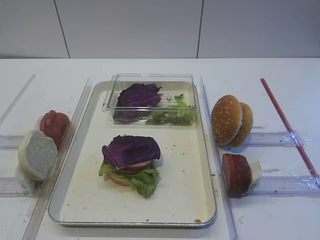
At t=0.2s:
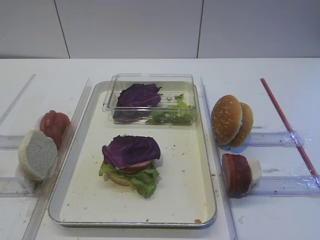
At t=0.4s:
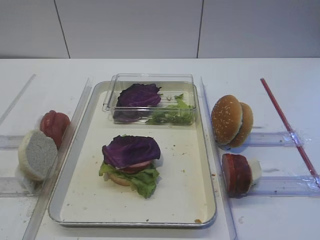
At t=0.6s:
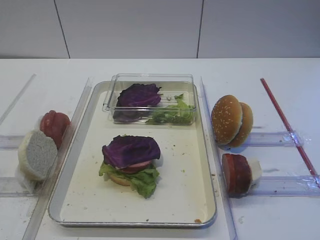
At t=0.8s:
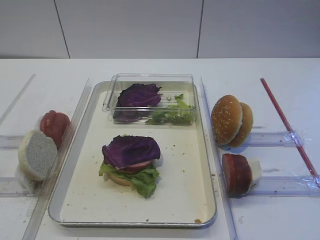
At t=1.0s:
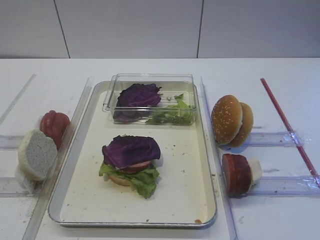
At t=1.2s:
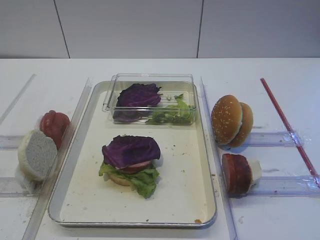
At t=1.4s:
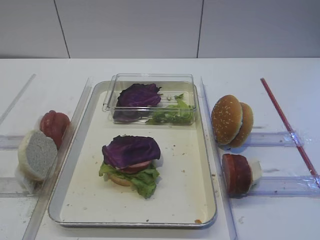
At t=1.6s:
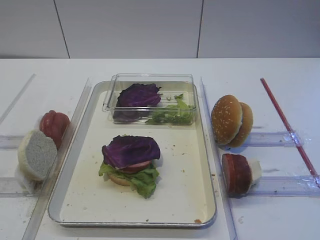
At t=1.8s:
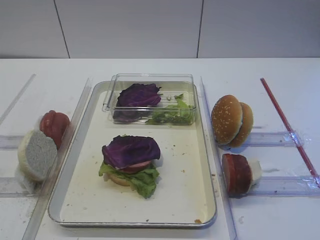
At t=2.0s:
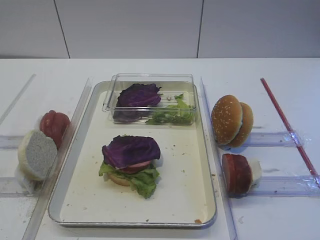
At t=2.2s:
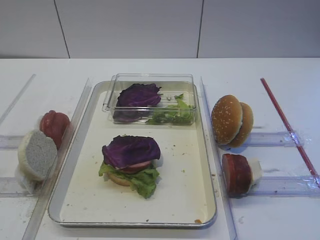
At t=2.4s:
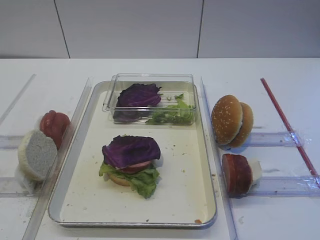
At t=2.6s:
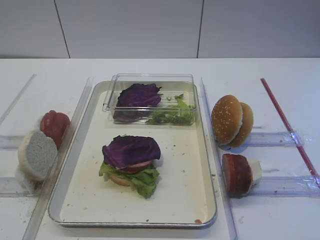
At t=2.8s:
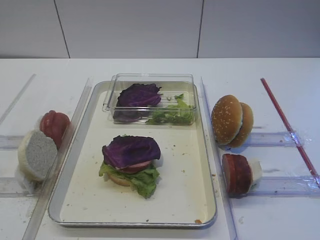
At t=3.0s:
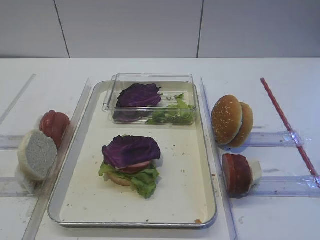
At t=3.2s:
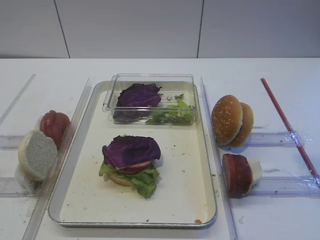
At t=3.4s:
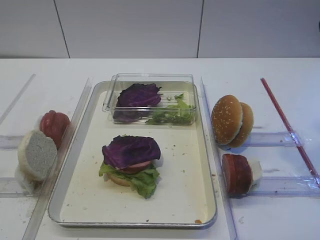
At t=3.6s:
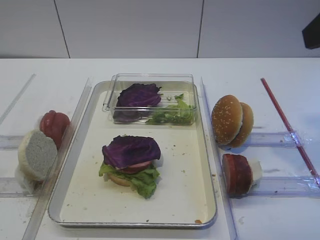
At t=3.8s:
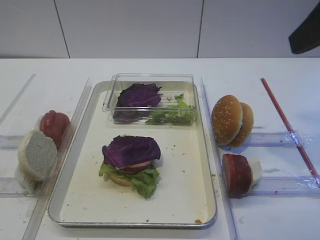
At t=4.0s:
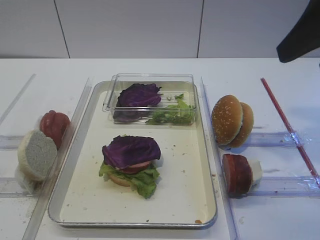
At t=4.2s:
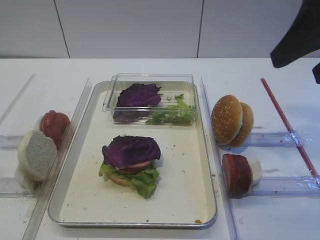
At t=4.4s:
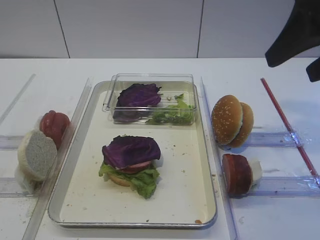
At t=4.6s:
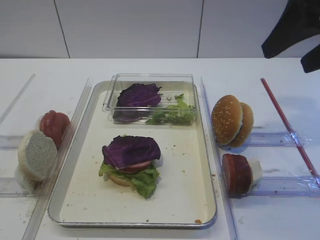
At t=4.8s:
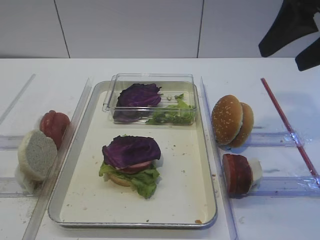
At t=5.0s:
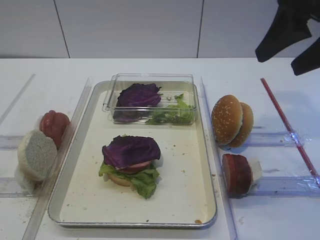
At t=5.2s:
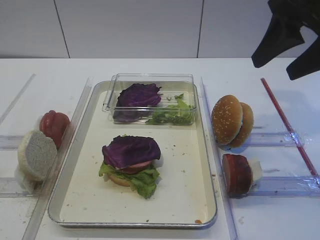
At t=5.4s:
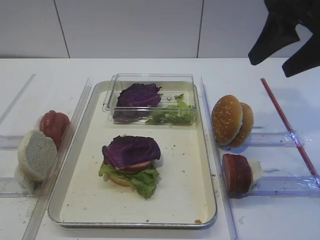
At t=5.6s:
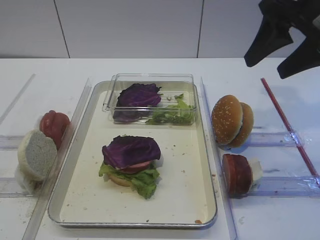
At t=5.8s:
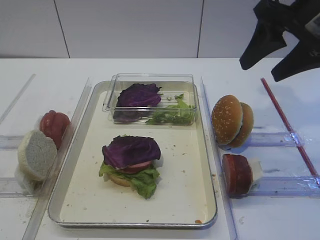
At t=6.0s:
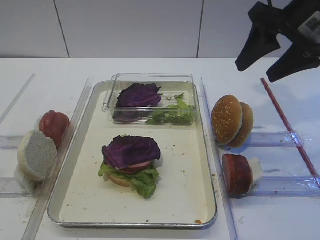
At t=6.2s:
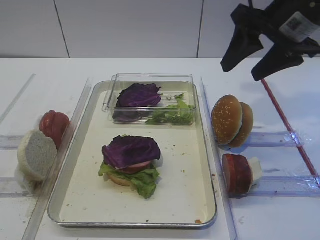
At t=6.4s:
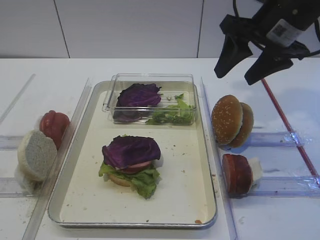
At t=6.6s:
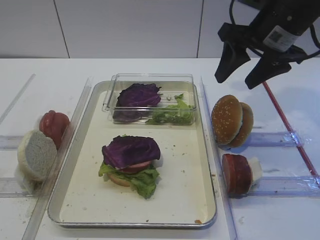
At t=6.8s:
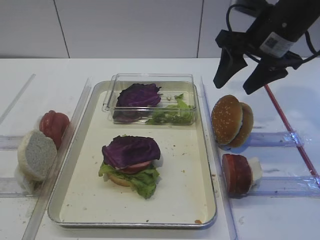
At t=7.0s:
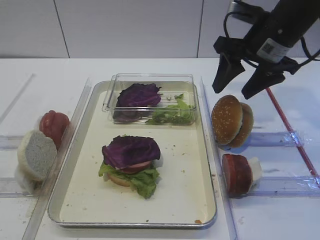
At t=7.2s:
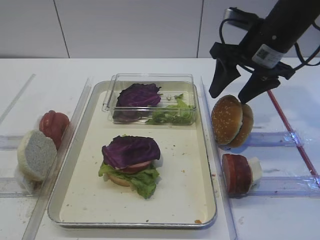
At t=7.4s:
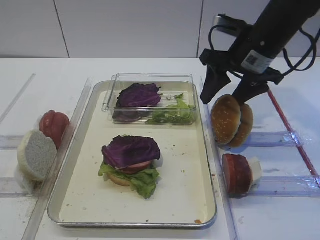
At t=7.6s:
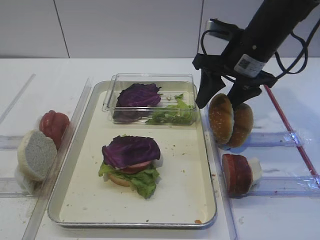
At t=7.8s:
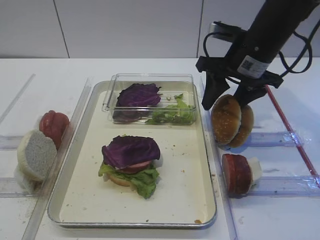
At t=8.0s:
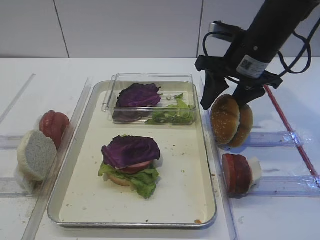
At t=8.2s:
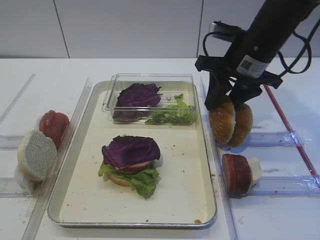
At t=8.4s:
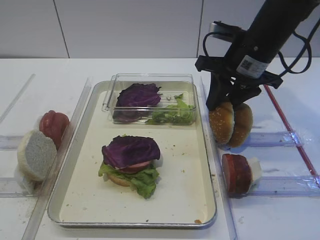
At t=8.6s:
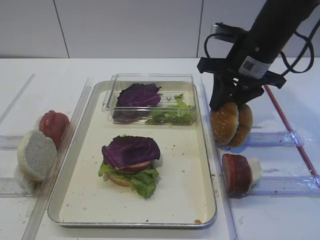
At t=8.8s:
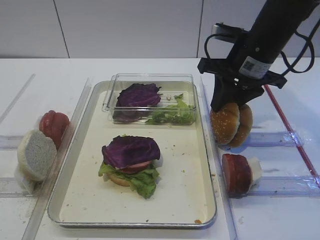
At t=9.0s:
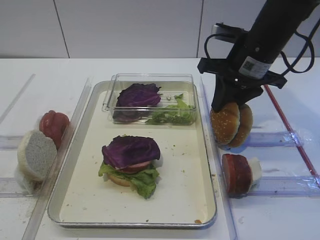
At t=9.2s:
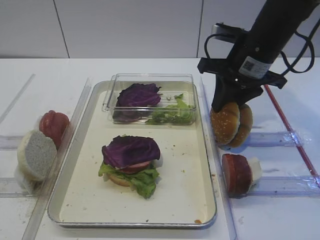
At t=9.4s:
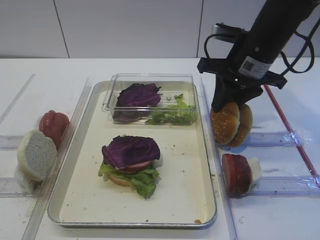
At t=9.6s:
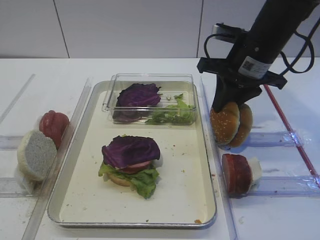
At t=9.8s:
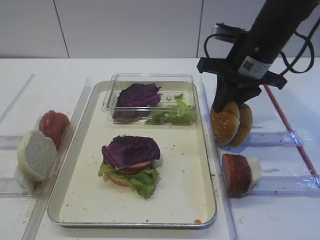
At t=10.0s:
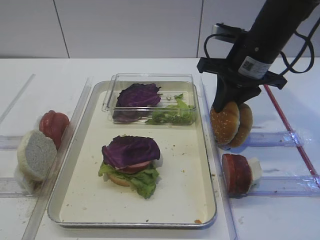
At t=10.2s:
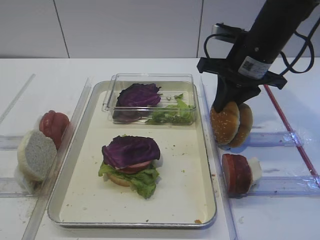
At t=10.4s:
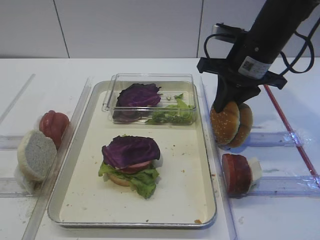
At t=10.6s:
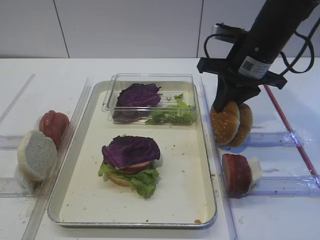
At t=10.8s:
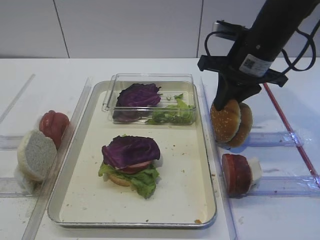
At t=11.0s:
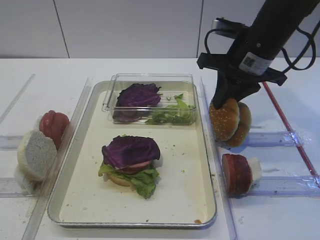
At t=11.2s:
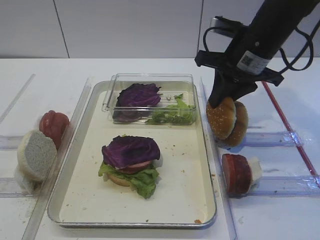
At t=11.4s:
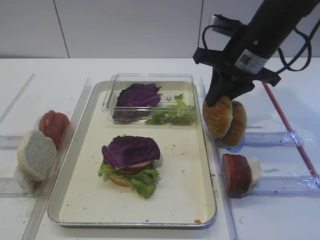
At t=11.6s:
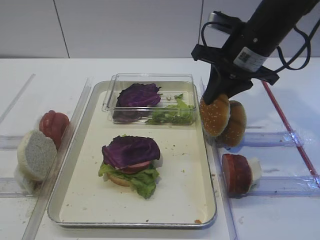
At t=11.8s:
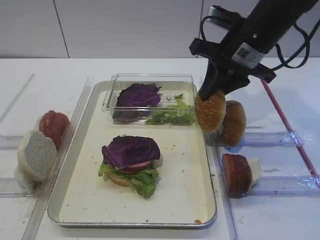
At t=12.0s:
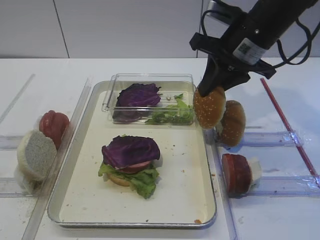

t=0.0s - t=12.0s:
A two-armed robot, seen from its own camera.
Step, t=0.0s - t=11.8s: Pick up the hamburger lid with the right gripper.
t=3.0s - t=4.4s: The right gripper travels forward and downward by some 15 cm.
t=4.4s - t=6.0s: The right gripper goes about 10 cm forward.
t=6.0s - t=7.6s: The right gripper shifts roughly 10 cm downward and to the left.
t=7.6s - t=9.0s: The right gripper closes up.
t=9.0s - t=10.4s: The two grippers keep their place.
t=10.4s - t=12.0s: The grippers stay close to where they were, moving slightly.

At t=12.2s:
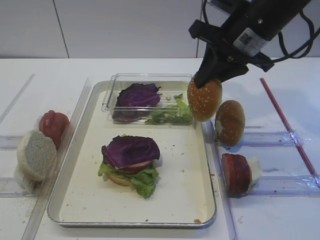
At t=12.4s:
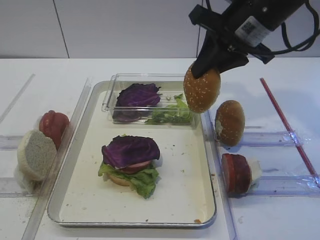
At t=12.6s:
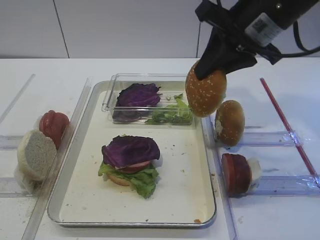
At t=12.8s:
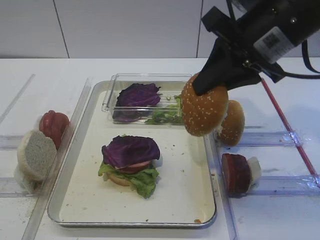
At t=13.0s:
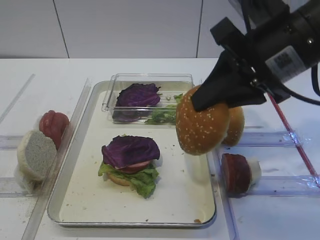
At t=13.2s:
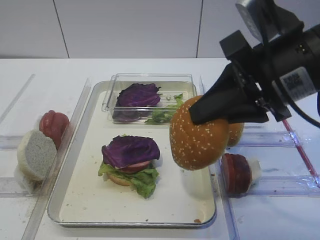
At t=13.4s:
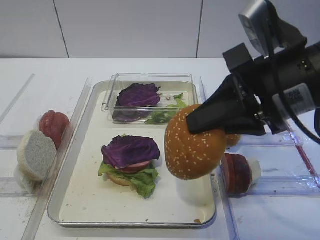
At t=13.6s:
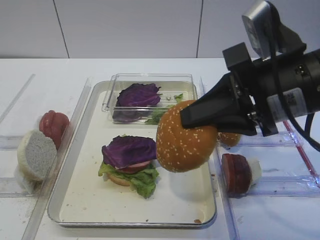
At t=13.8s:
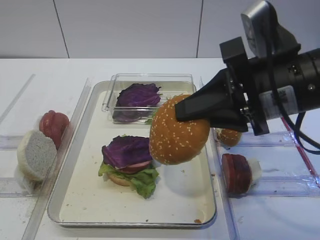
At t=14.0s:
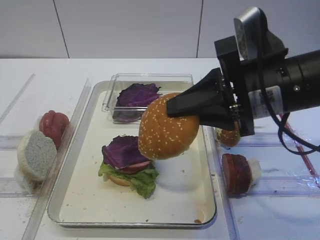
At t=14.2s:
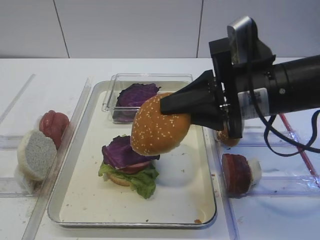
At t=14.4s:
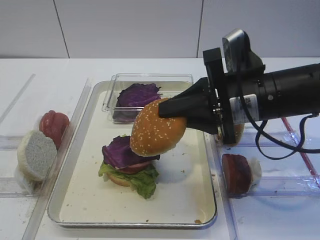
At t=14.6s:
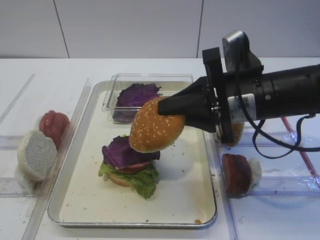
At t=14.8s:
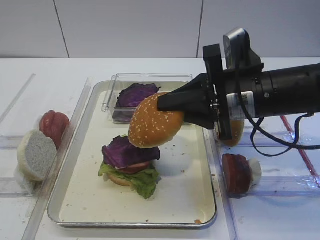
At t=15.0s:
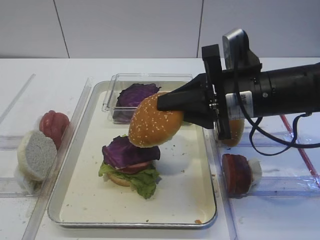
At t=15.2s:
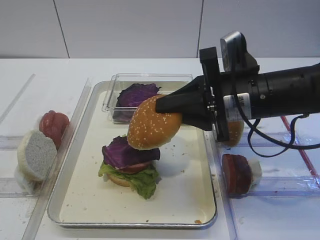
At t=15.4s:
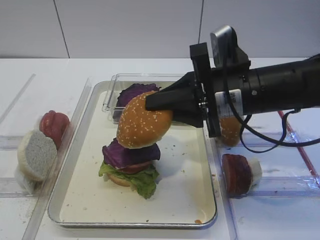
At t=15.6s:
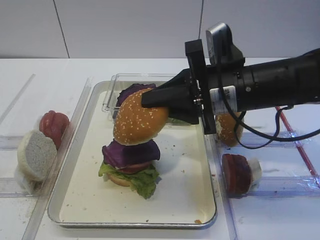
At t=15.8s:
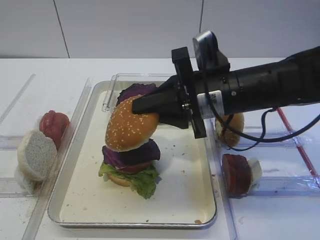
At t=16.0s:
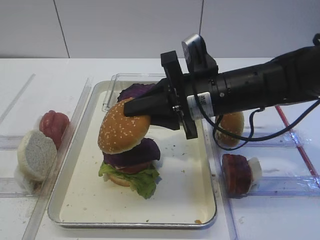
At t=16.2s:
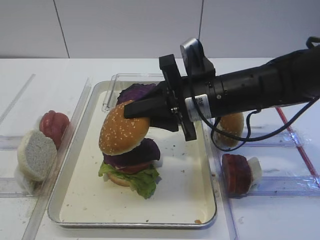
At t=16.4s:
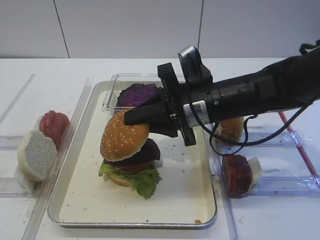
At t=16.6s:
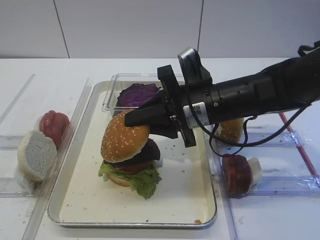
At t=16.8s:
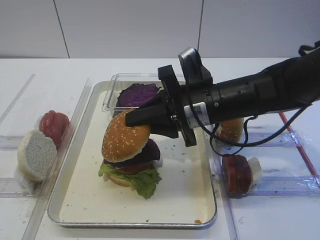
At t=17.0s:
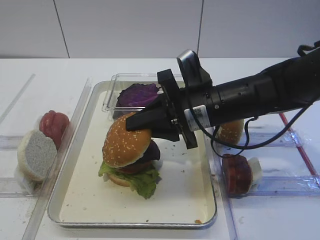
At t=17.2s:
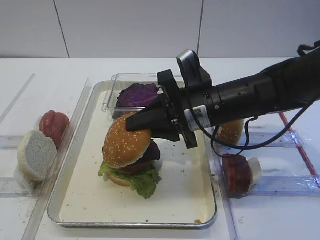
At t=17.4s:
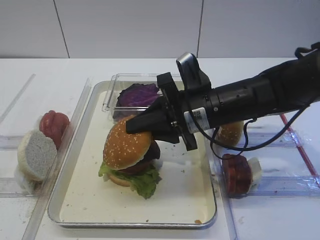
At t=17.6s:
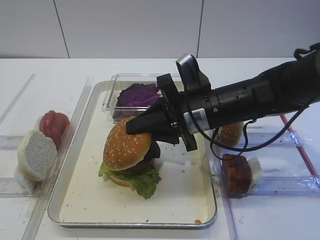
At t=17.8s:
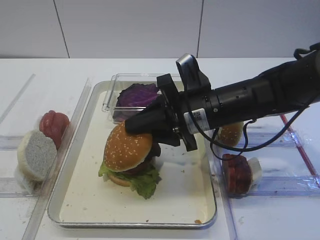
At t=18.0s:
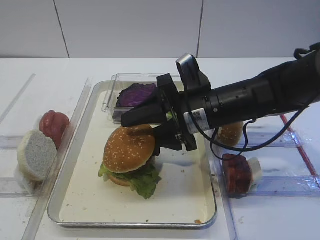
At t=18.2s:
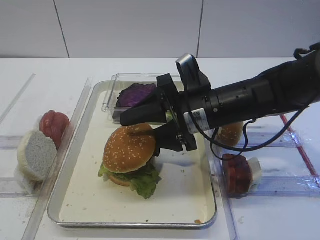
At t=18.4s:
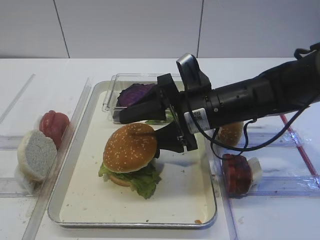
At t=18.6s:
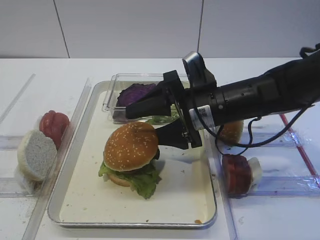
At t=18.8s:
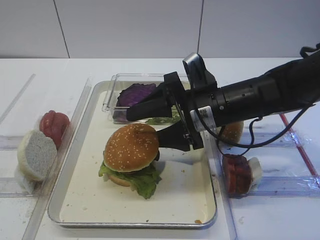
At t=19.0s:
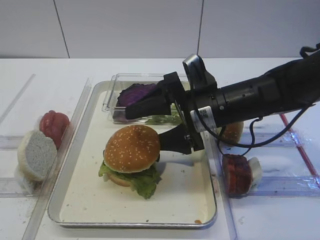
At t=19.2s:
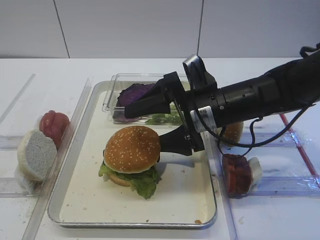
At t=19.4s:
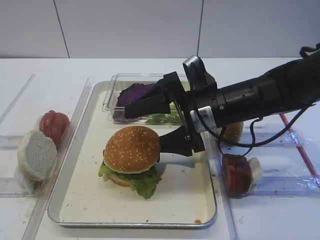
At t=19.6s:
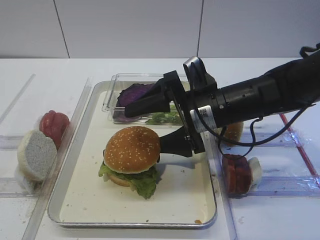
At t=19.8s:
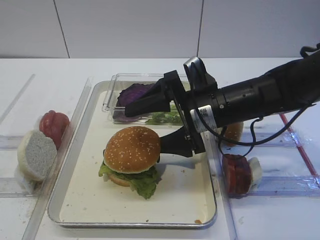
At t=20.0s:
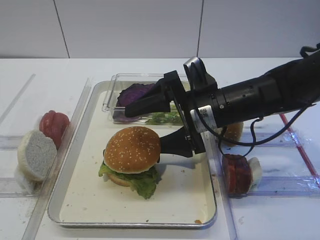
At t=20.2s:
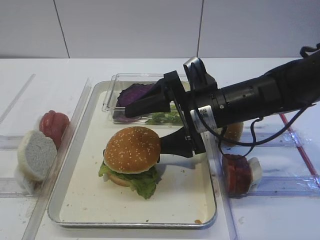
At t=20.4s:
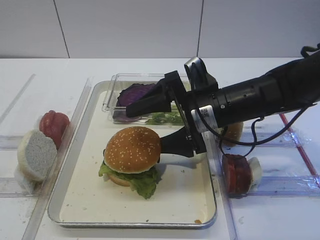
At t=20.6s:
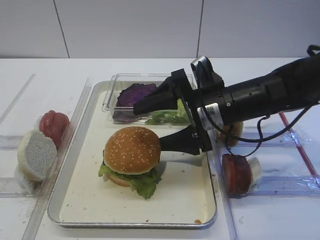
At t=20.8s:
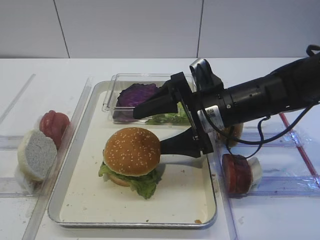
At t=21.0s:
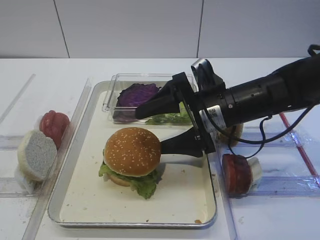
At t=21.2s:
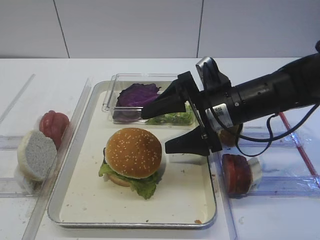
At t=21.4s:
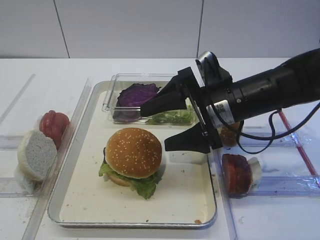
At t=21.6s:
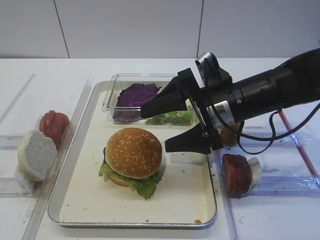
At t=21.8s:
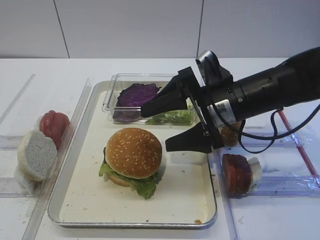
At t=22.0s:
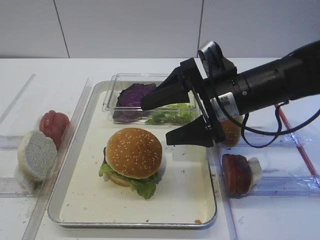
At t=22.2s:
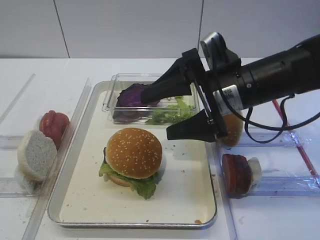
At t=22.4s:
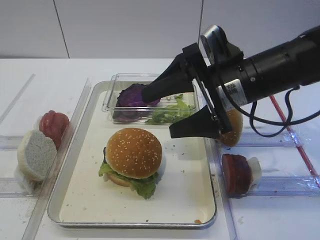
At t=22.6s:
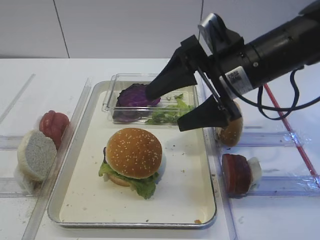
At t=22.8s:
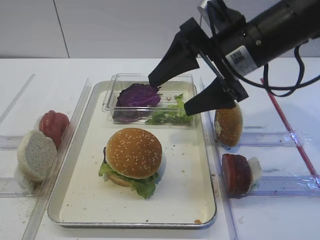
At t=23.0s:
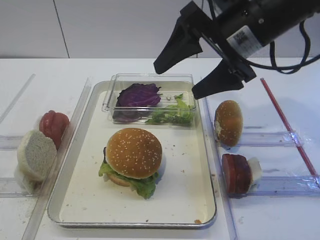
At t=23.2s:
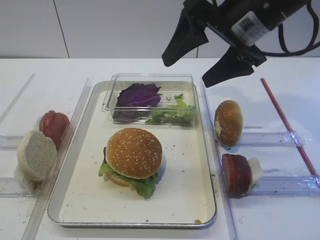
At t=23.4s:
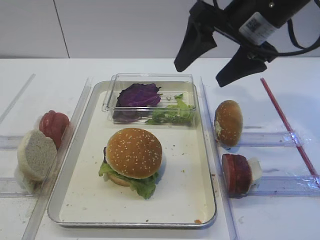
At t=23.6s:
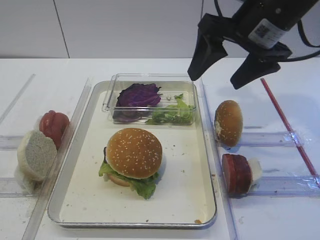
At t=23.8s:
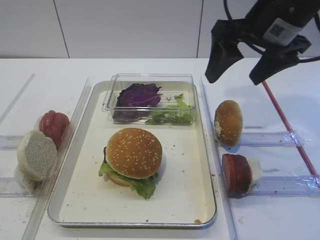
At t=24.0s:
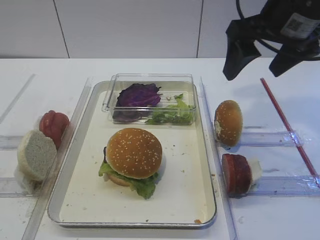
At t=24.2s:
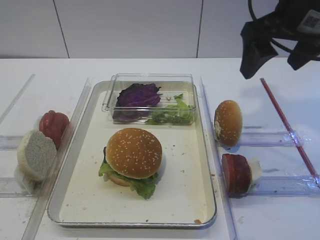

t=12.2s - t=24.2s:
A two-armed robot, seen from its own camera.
Step, t=12.2s - t=22.0s: Place the hamburger lid on the cheese slice with the right gripper.
t=12.2s - t=13.8s: The right gripper travels backward by some 15 cm.
t=13.8s - t=15.2s: The right gripper changes place by approximately 5 cm.
t=15.2s - t=16.6s: The right gripper ends up about 5 cm from where it was.
t=16.6s - t=18.2s: The right gripper opens its fingers.
t=18.2s - t=21.2s: The grippers stay close to where they were, moving slightly.
t=21.2s - t=22.6s: The right gripper moves upward, some 10 cm.
t=22.6s - t=24.2s: The right gripper goes approximately 10 cm upward and to the right.
